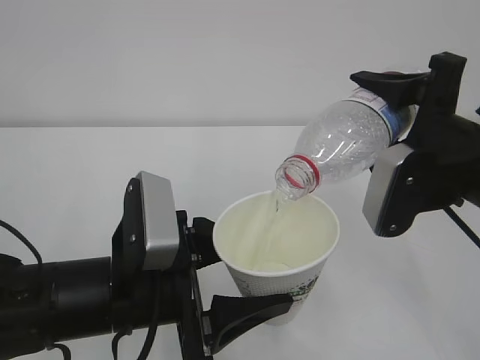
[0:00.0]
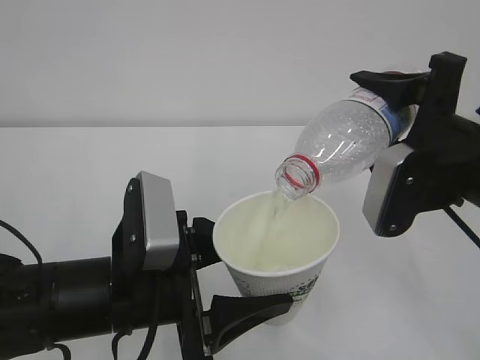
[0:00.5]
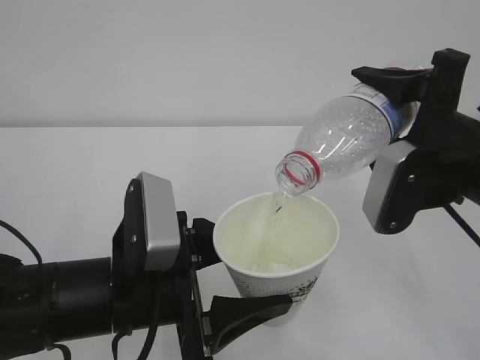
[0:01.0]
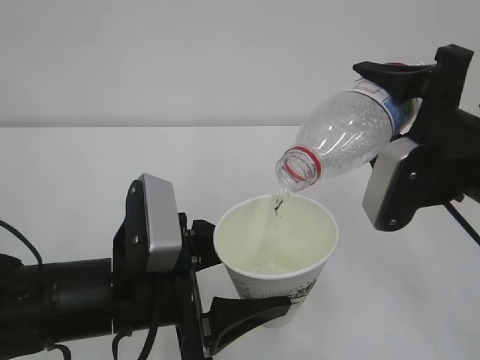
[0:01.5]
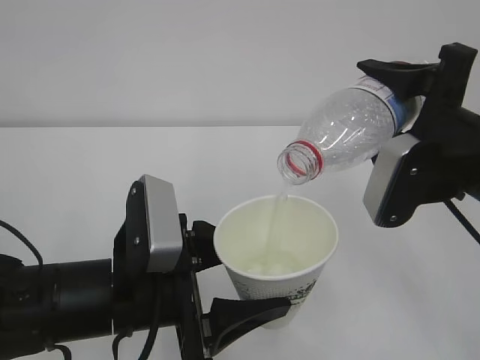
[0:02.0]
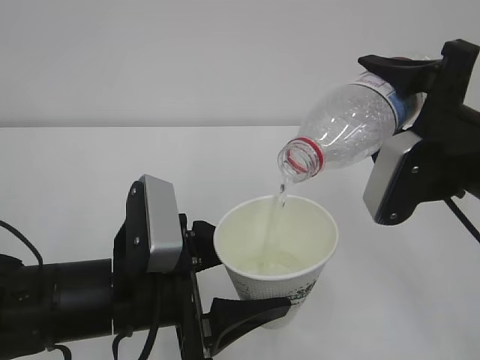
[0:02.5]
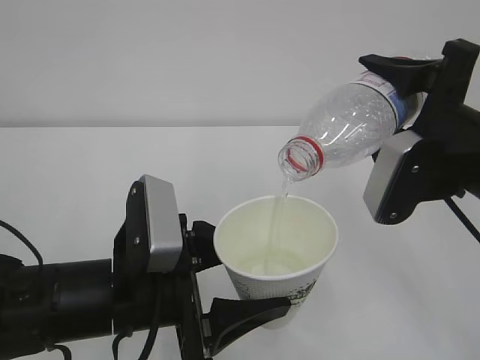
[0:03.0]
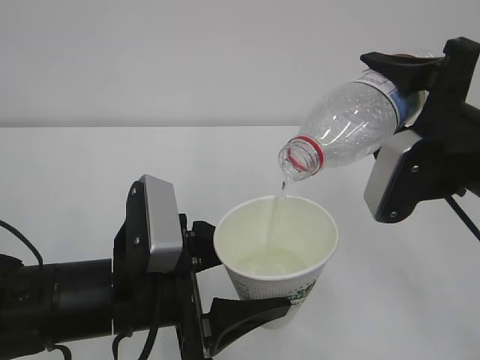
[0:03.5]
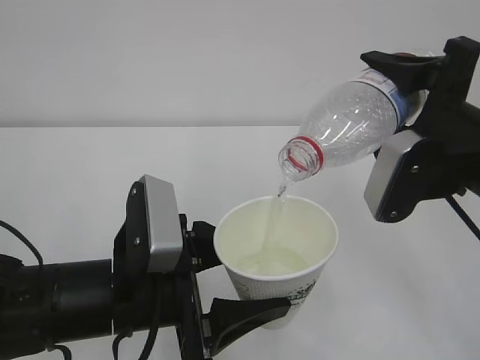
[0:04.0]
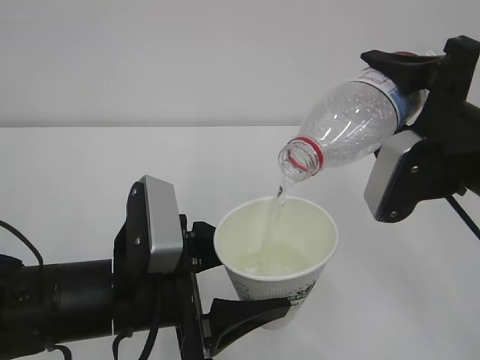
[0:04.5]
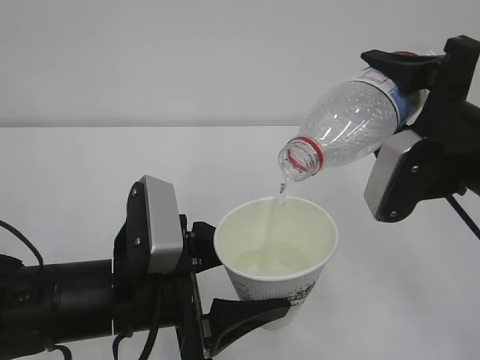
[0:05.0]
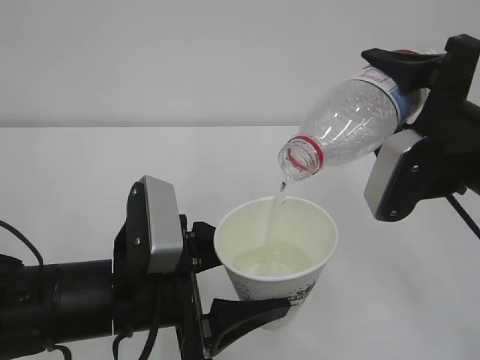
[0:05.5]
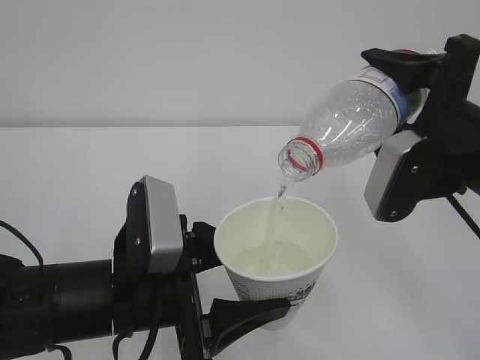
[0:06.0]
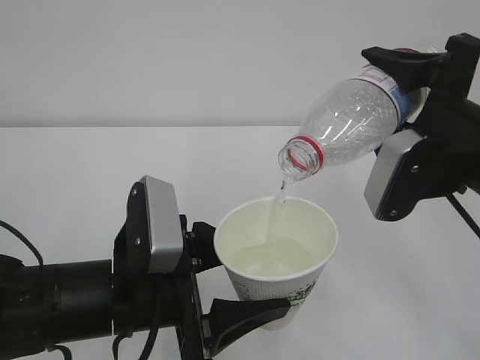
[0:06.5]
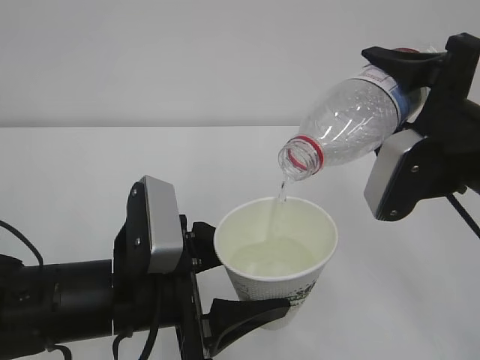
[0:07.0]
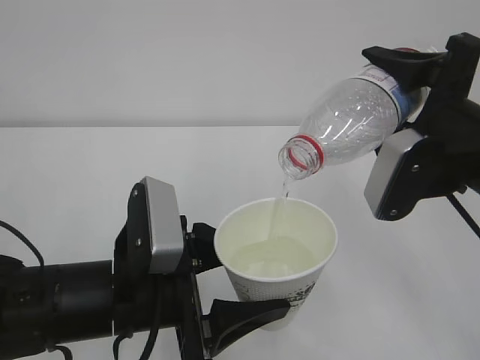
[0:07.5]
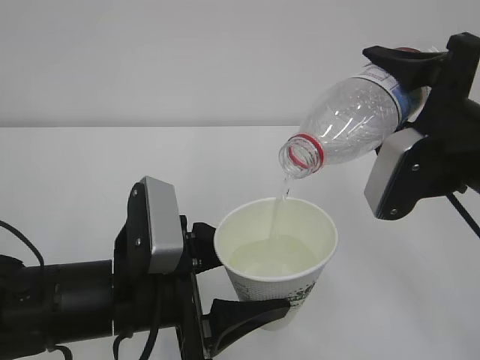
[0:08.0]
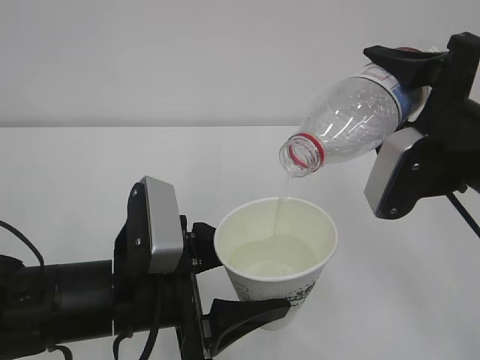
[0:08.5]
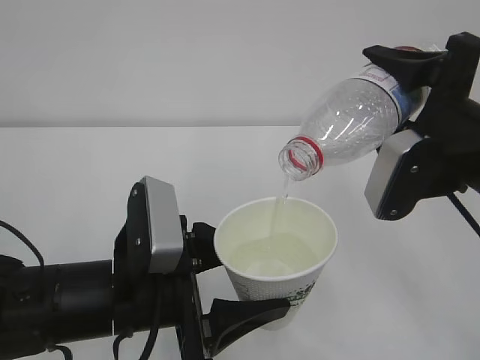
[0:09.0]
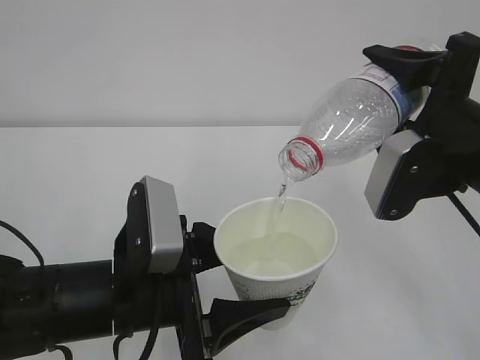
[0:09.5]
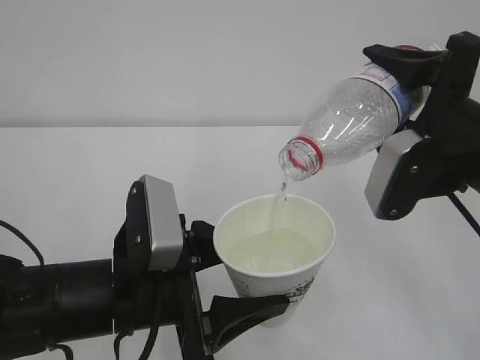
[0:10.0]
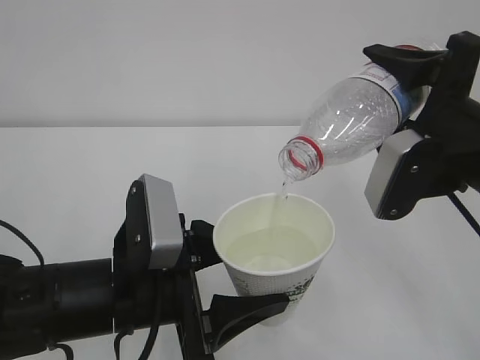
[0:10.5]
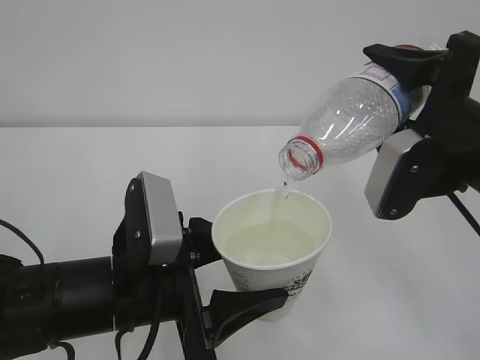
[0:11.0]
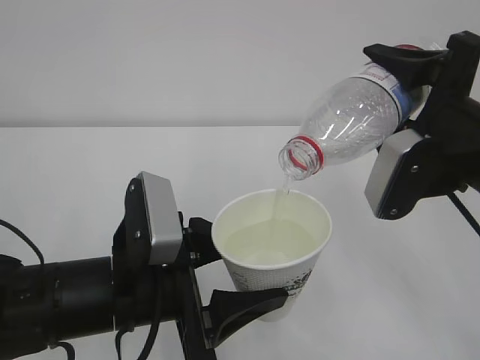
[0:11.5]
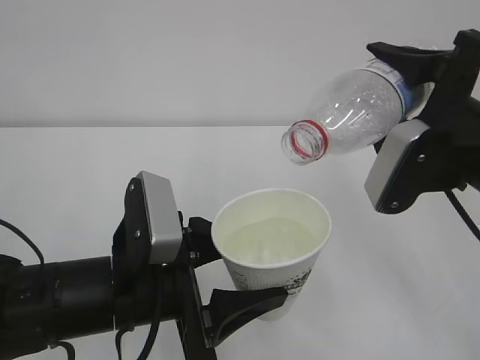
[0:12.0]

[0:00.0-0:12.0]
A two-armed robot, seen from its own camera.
0.0 to 2.0 s: The two grippers keep their place.
2.0 to 8.0 s: The two grippers keep their place.
8.0 to 10.0 s: Neither gripper changes place.
10.0 to 12.0 s: There are only small adjustments of the grippers.

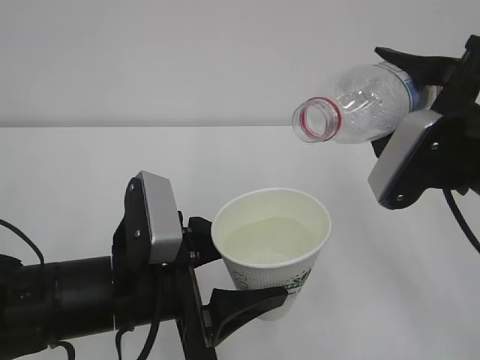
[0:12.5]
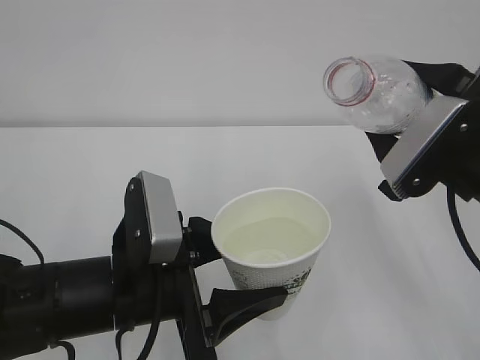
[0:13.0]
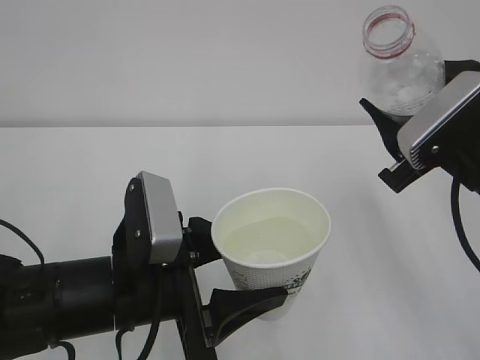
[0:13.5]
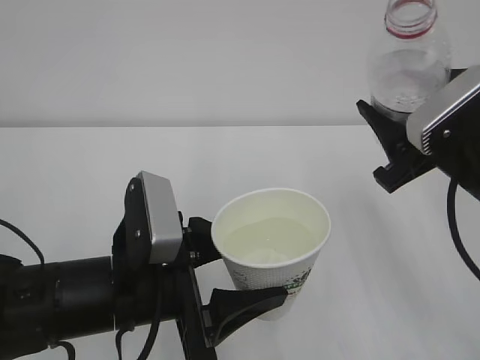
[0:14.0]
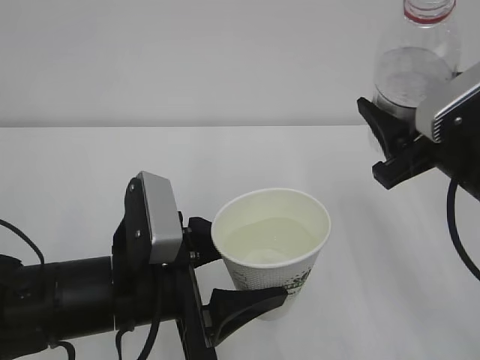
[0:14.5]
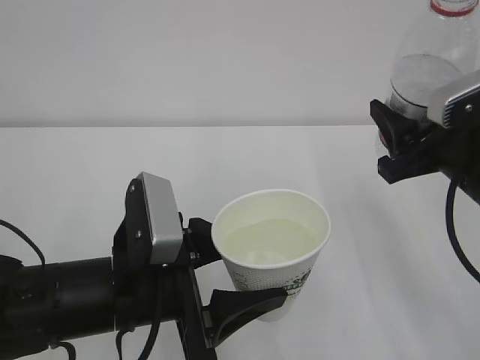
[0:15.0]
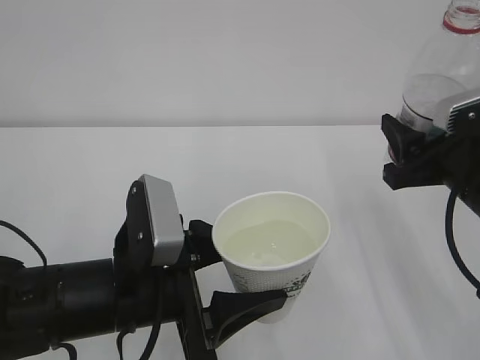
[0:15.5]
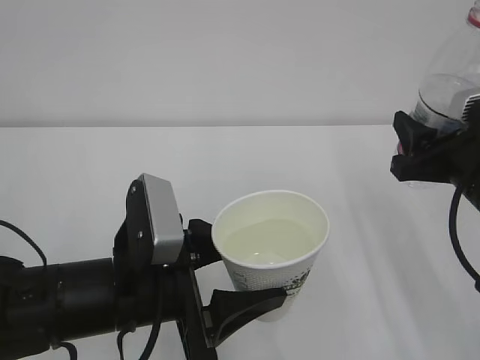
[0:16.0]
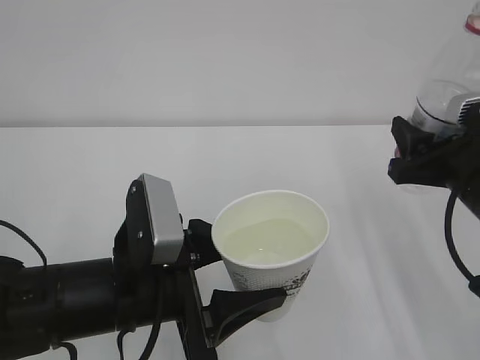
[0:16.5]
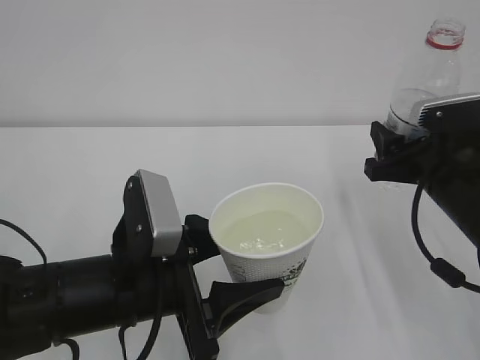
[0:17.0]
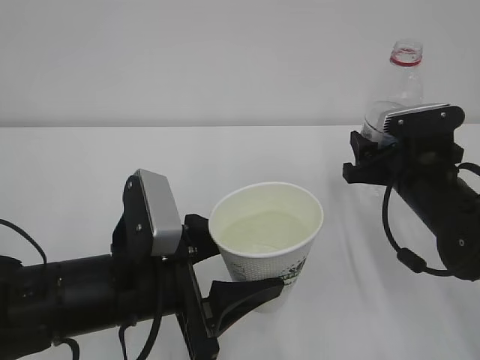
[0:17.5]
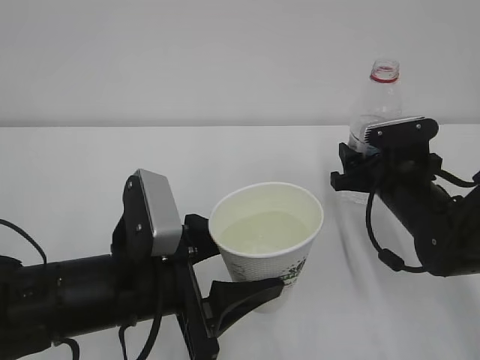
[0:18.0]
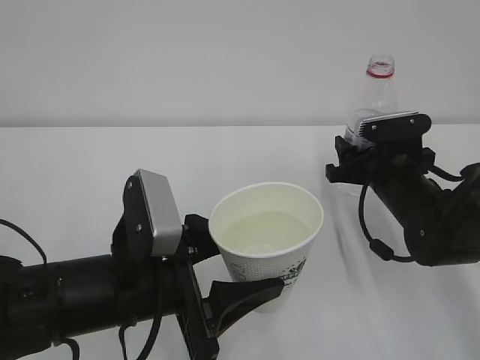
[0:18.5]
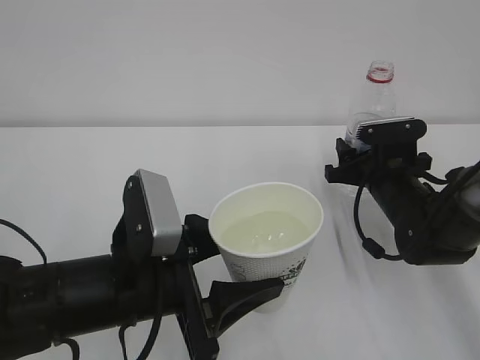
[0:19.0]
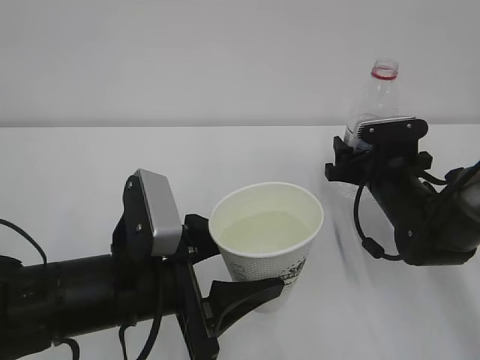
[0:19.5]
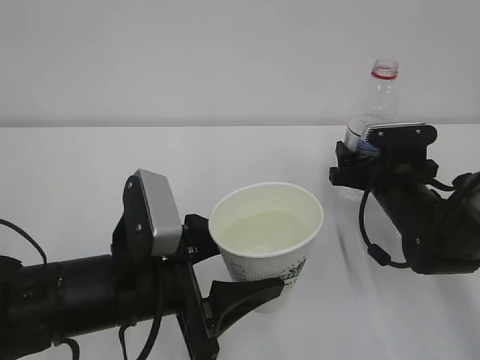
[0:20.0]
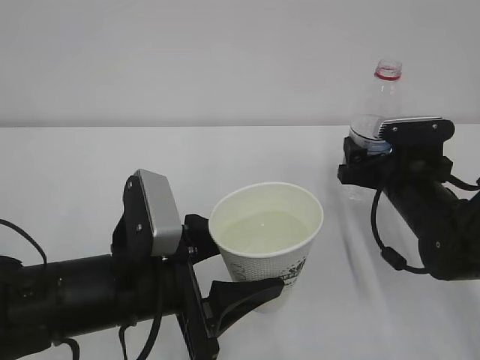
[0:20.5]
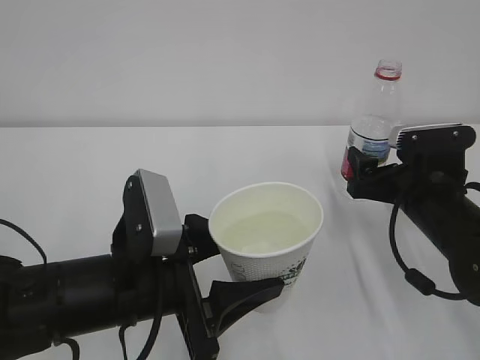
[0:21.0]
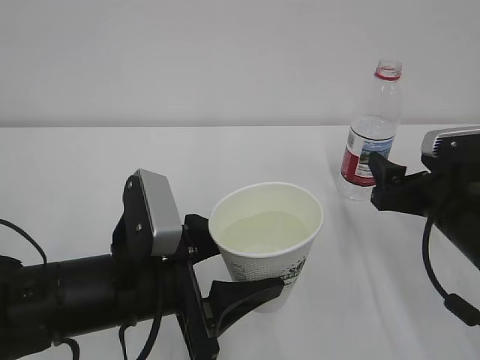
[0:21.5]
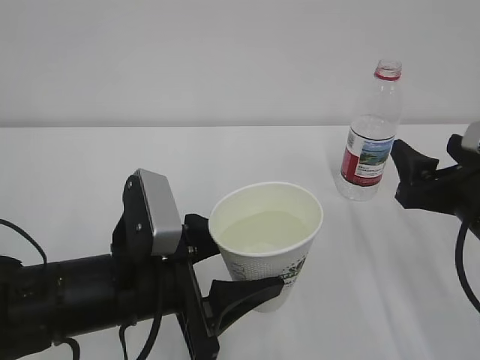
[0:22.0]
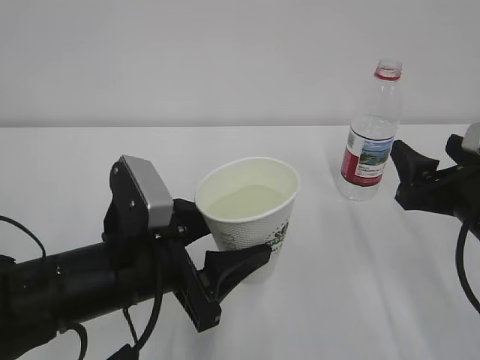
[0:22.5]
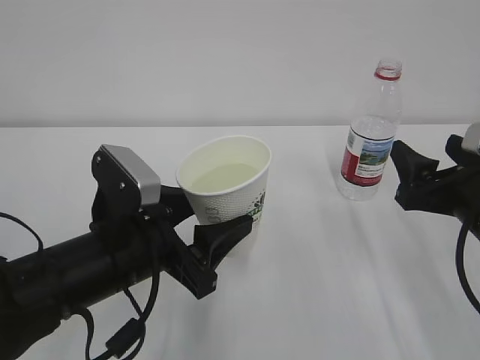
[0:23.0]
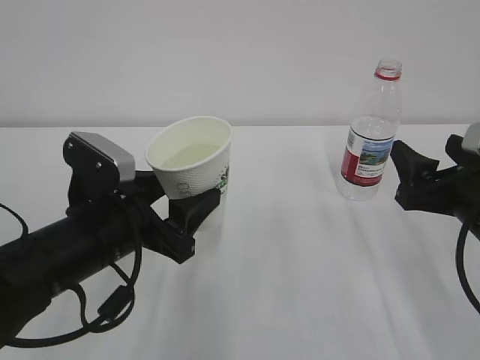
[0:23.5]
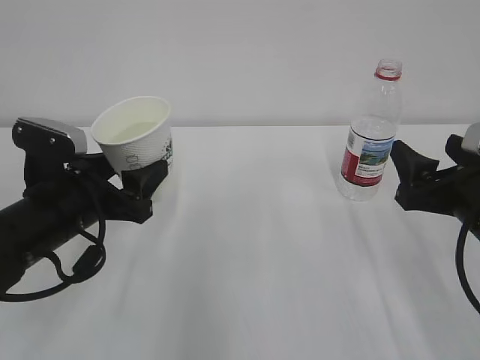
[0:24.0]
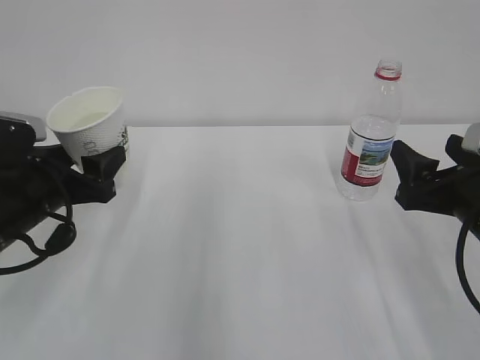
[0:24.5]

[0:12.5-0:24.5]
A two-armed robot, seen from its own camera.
16.5 to 18.5 s: The right gripper is displaced forward and downward by about 15 cm.
18.5 to 20.5 s: The right gripper opens its fingers.
20.5 to 22.5 s: The right gripper travels backward and upward by some 10 cm.
22.5 to 24.5 s: The left gripper heads to the left and forward, covering some 15 cm.

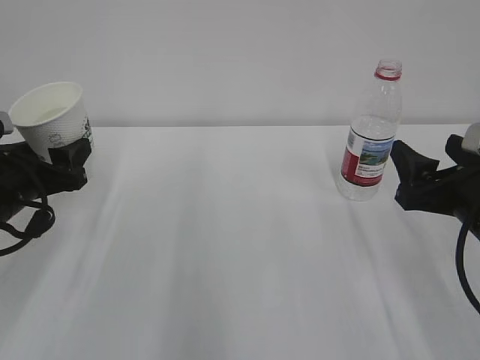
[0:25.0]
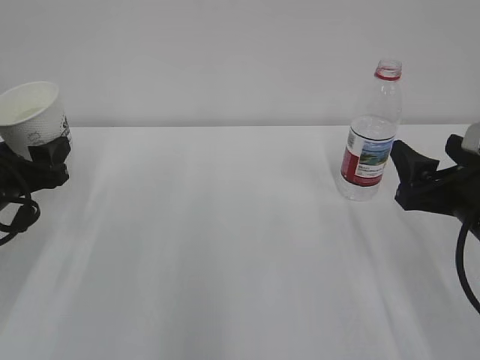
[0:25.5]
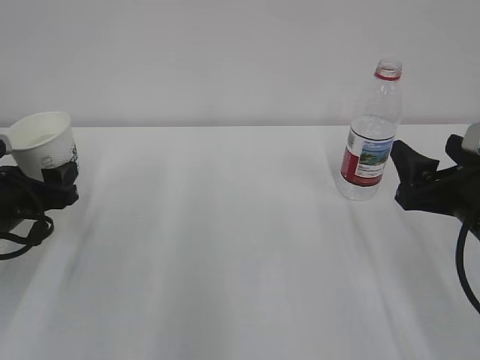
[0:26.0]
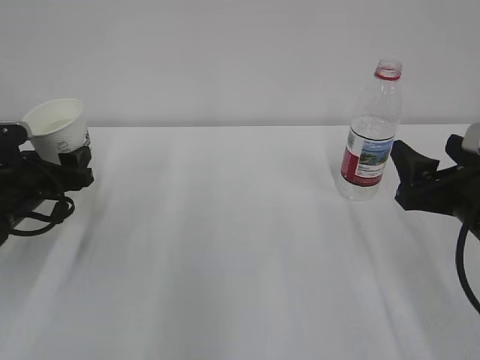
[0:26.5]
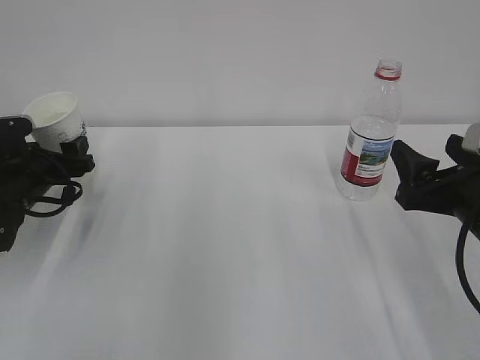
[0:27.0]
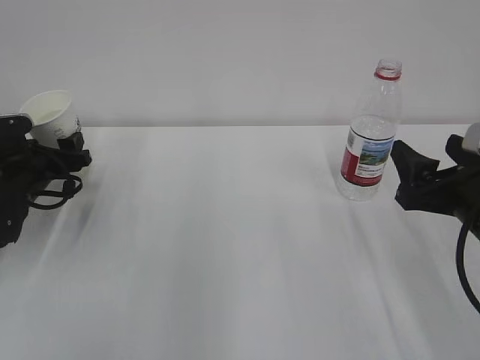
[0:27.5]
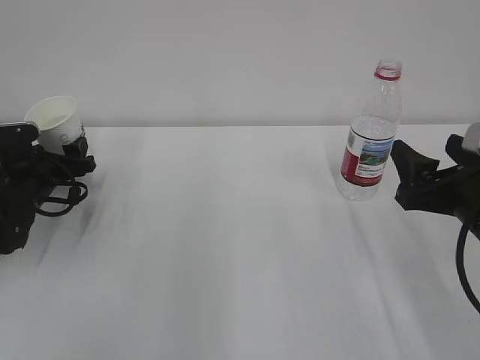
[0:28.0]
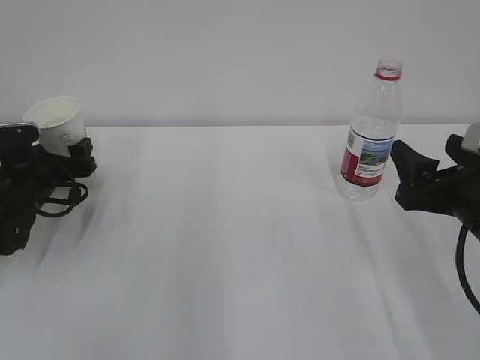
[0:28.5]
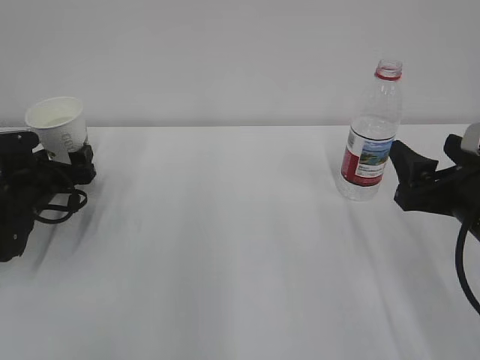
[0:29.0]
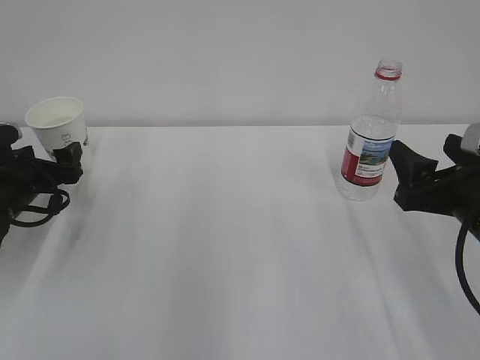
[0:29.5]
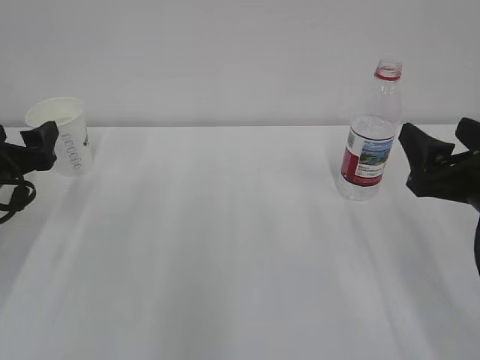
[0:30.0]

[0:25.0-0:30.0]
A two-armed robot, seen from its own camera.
25.0 to 27.5 s: The left gripper moves forward and downward, roughly 15 cm.
27.5 to 30.0 s: The left gripper travels backward and upward by roughly 10 cm, and opens its fingers.
